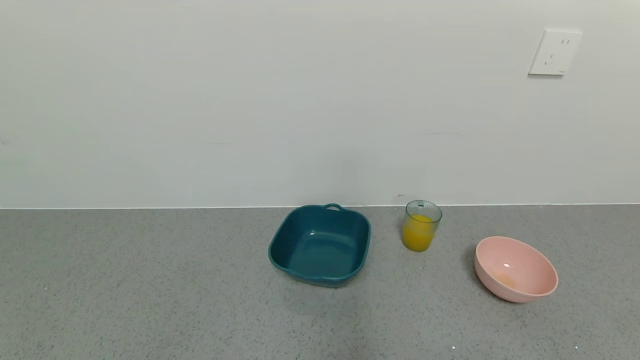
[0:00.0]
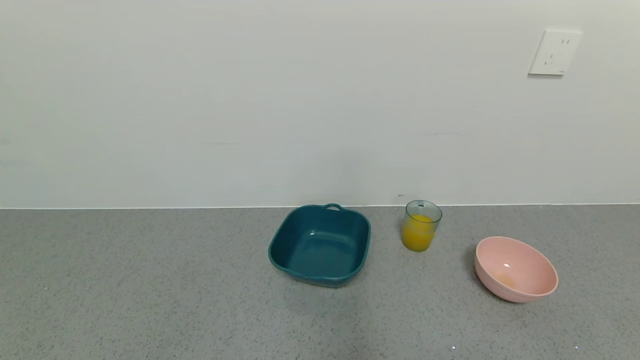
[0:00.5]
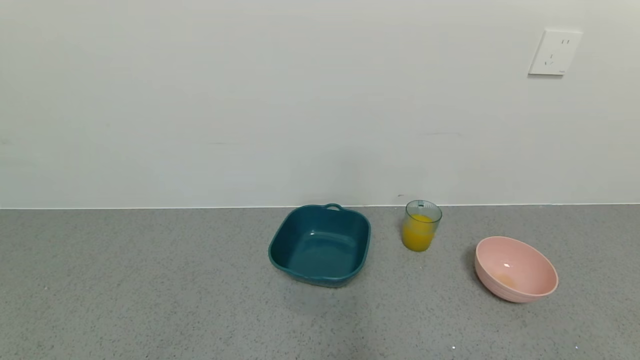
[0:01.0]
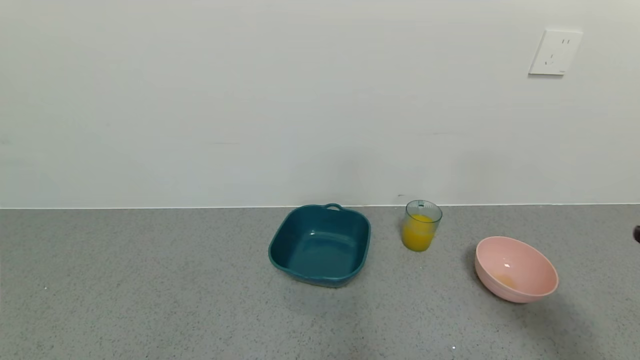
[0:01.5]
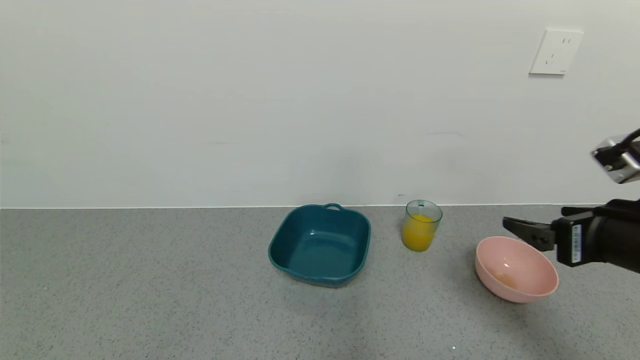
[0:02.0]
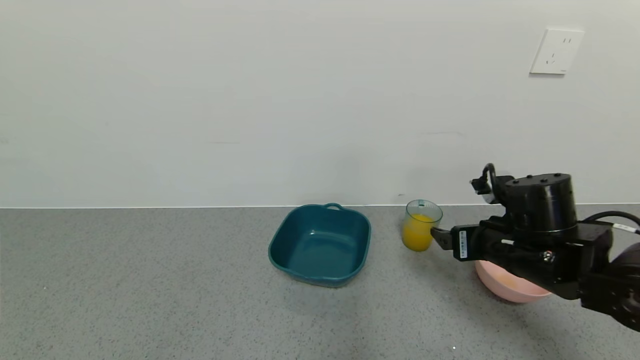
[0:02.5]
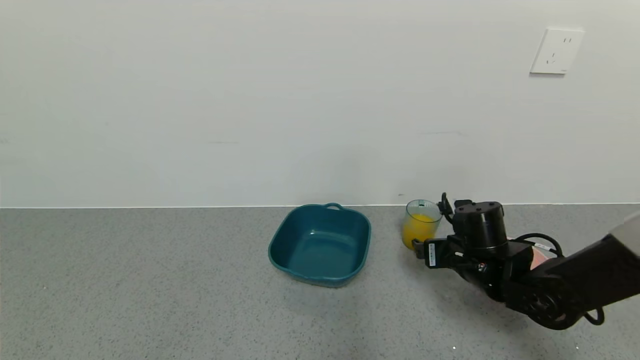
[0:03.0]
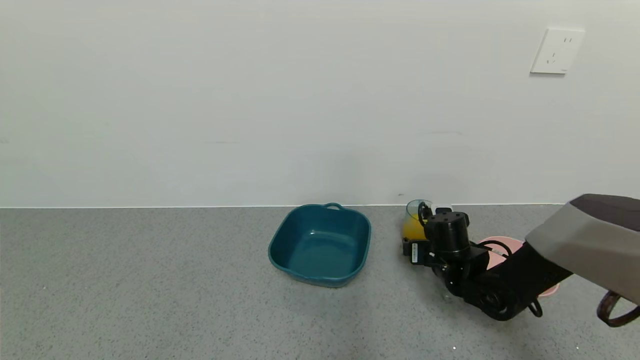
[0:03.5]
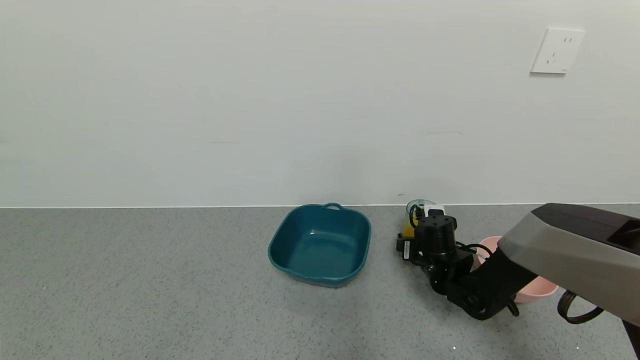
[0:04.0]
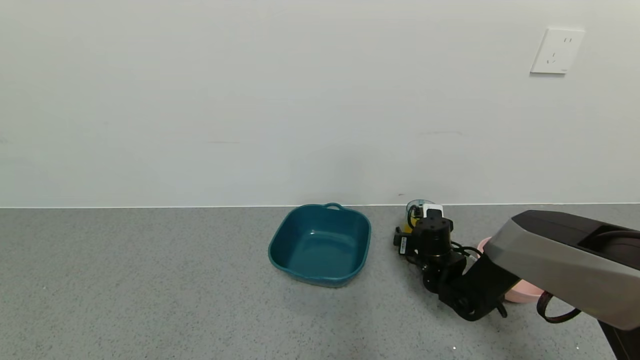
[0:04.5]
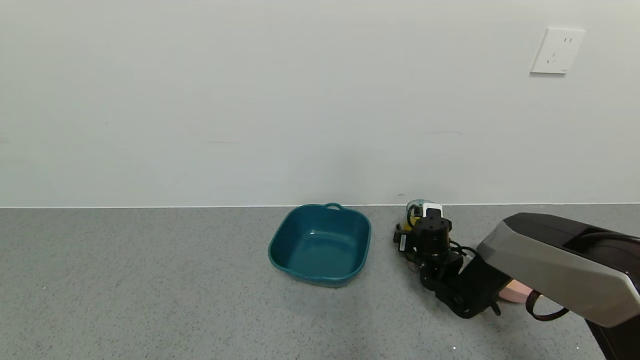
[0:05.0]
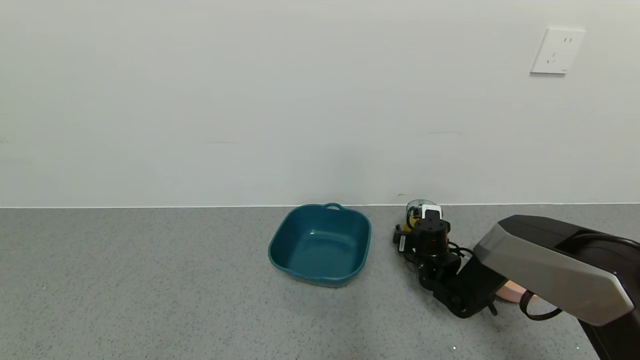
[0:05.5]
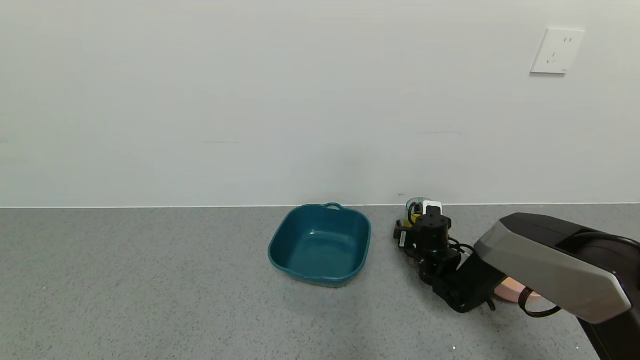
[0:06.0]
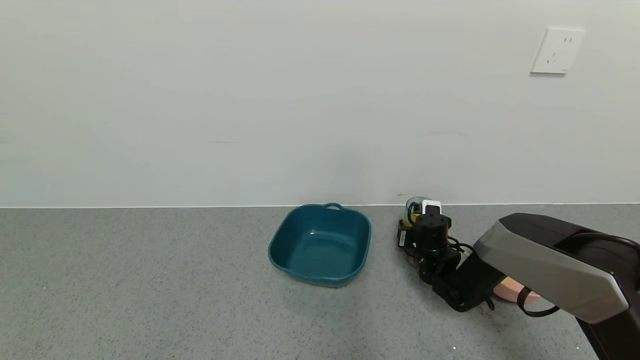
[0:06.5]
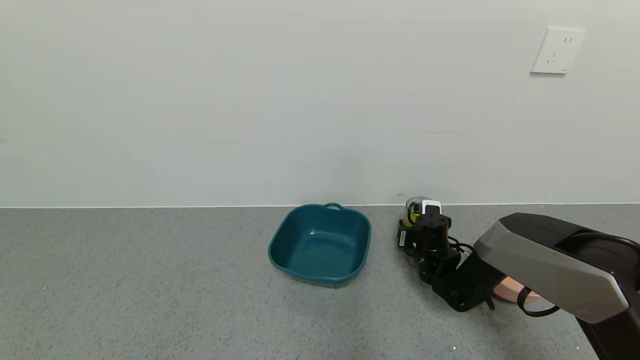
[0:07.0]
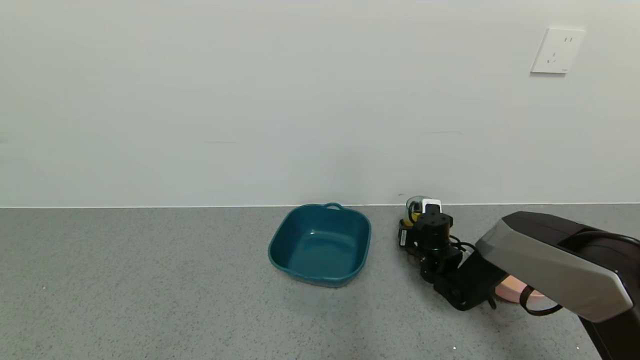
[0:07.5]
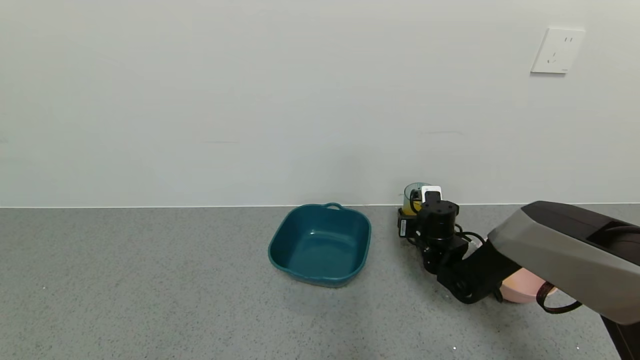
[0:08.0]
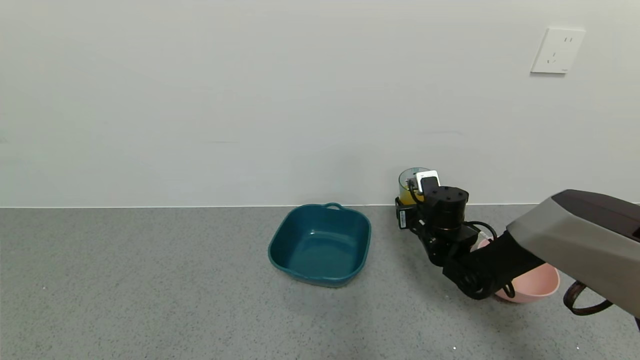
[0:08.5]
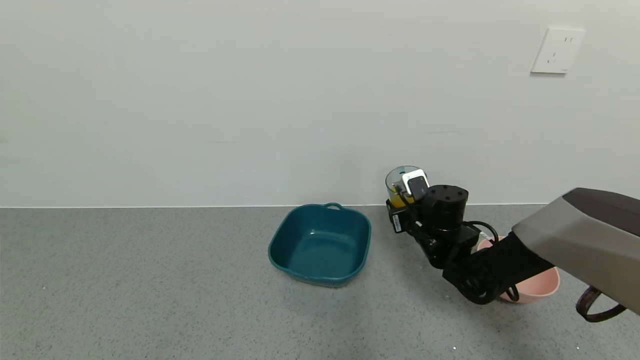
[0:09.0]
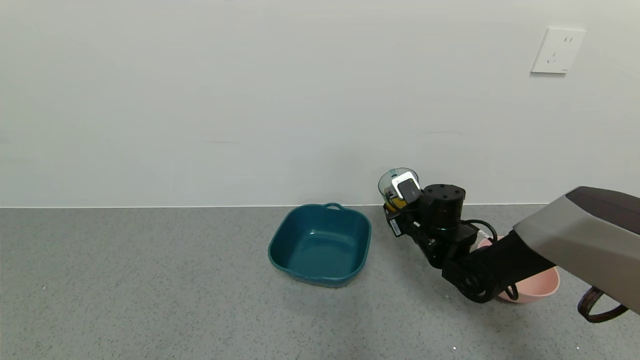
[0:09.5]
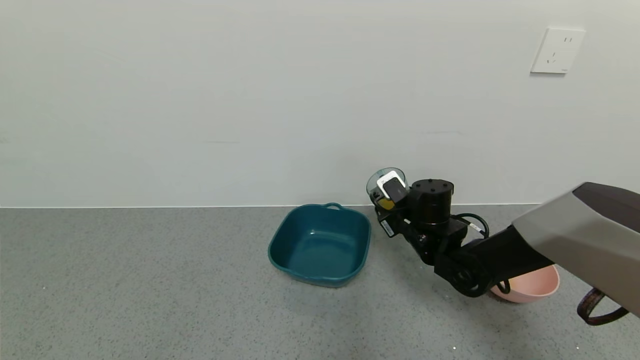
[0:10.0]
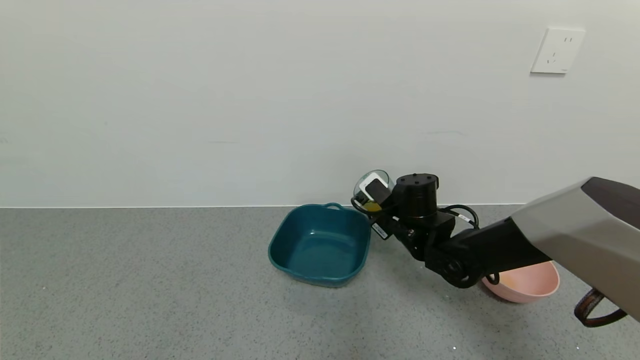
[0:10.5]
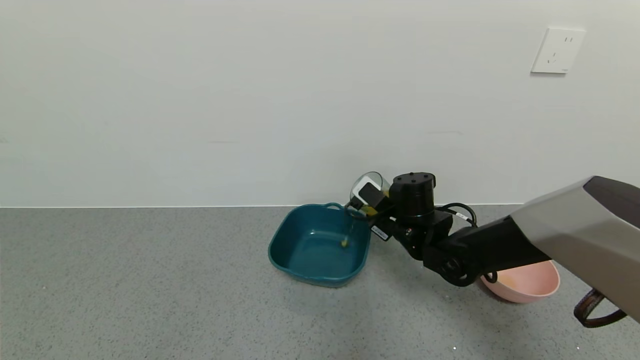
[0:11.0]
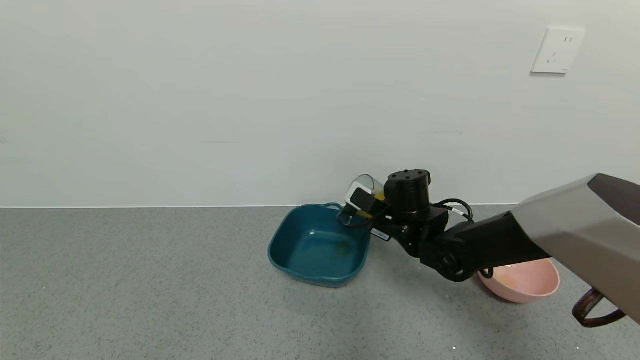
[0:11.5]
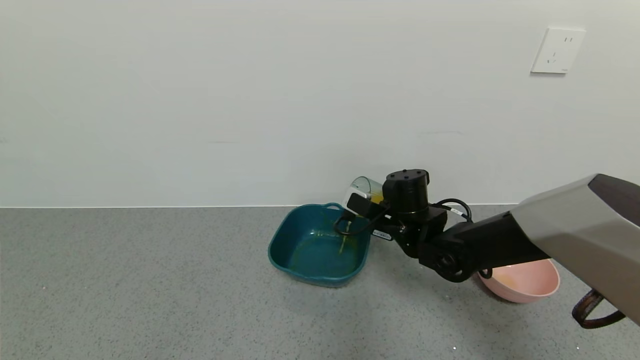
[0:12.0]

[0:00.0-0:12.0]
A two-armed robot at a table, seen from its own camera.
Task of the whole recording: use a gripper to pick up the cup and pour the liquid into a bowl or tray.
Step, 0:07.5 to 0:10.5: Pick up blue cup filled with orange juice with right gripper.
0:00.0 to 0:02.0: The right gripper goes about 25 cm forward and upward.
0:02.0 to 0:04.0: The right gripper shifts approximately 30 cm downward, forward and to the left.
0:04.0 to 0:06.0: The grippers make only small movements.
0:06.0 to 0:08.0: The right gripper closes up.
0:08.0 to 0:10.0: The right gripper heads upward, covering about 5 cm.

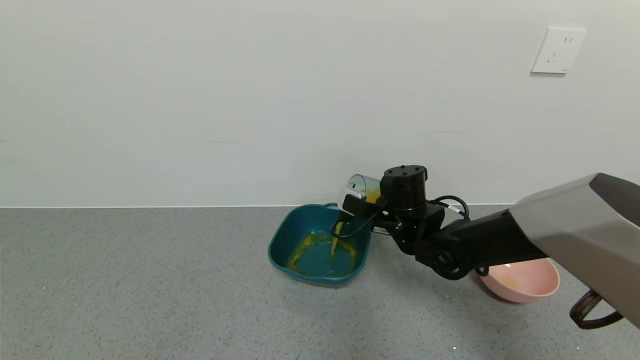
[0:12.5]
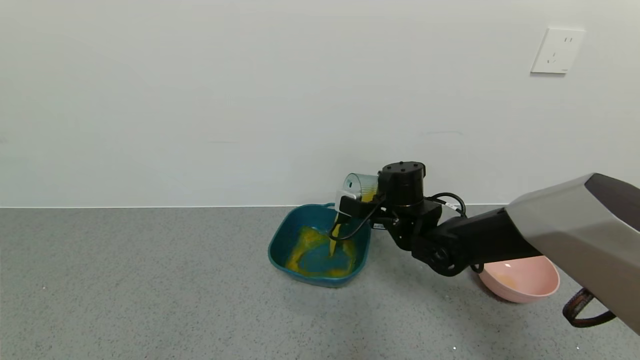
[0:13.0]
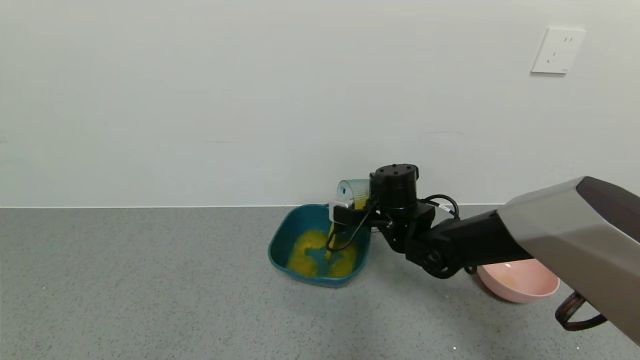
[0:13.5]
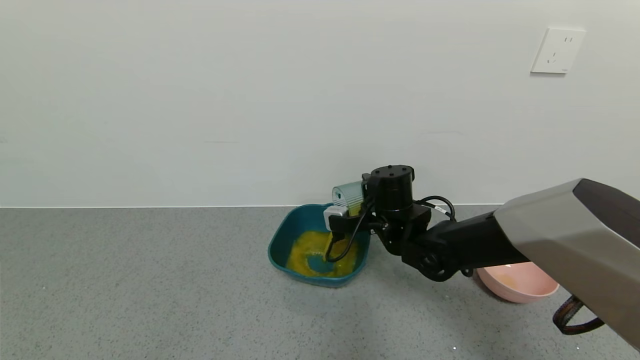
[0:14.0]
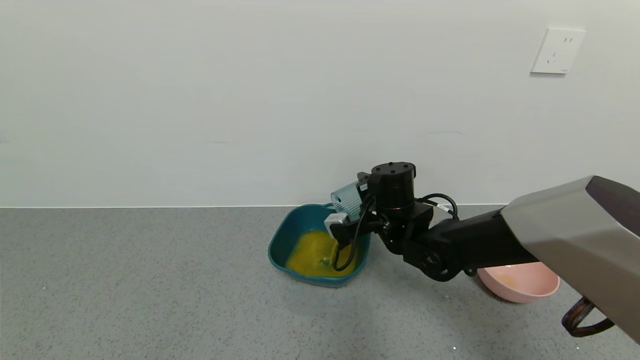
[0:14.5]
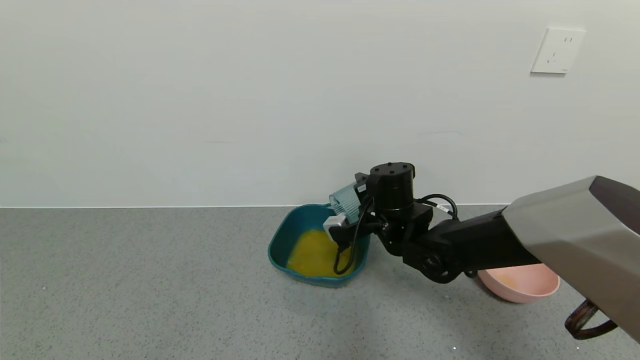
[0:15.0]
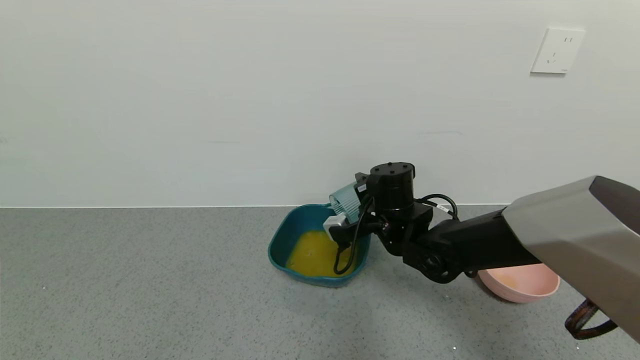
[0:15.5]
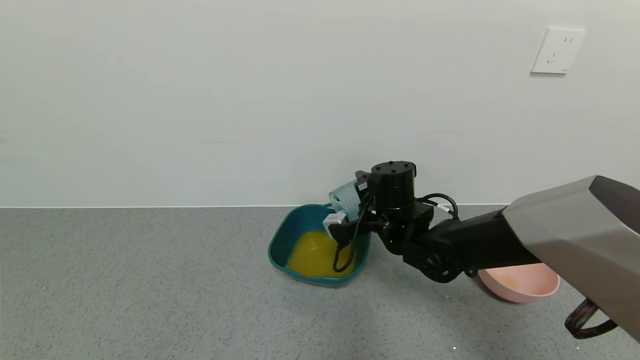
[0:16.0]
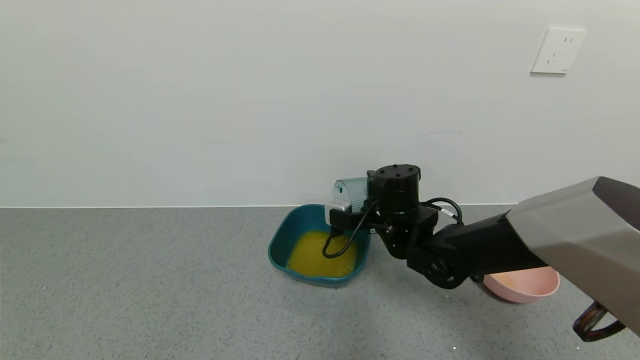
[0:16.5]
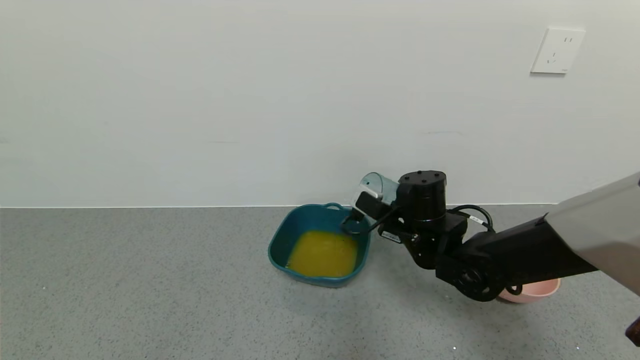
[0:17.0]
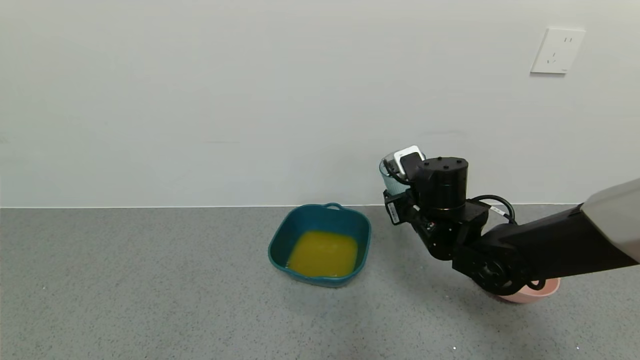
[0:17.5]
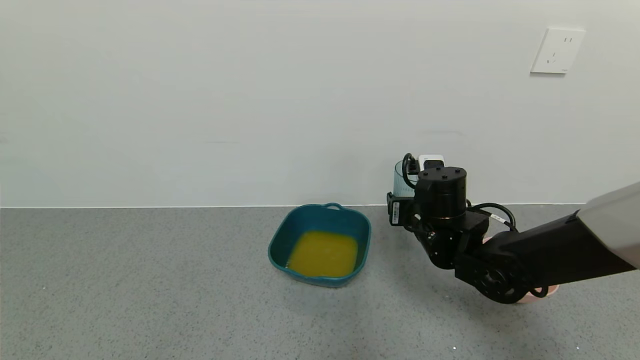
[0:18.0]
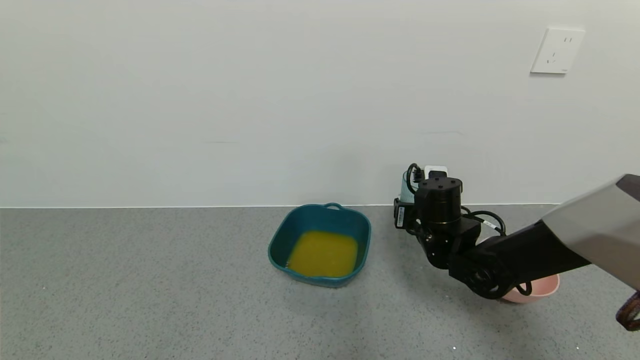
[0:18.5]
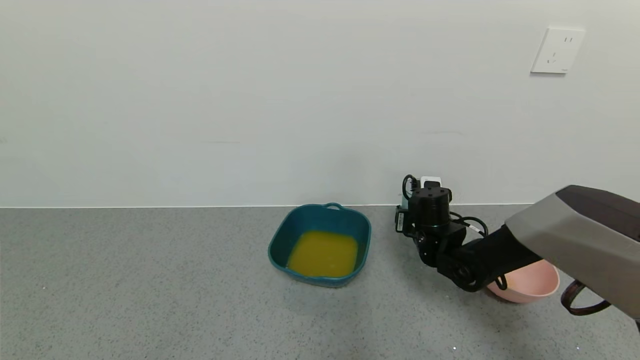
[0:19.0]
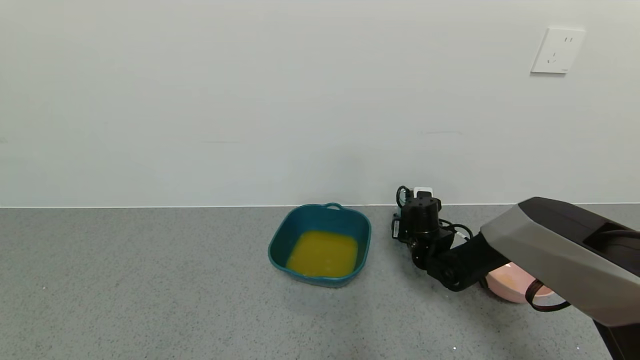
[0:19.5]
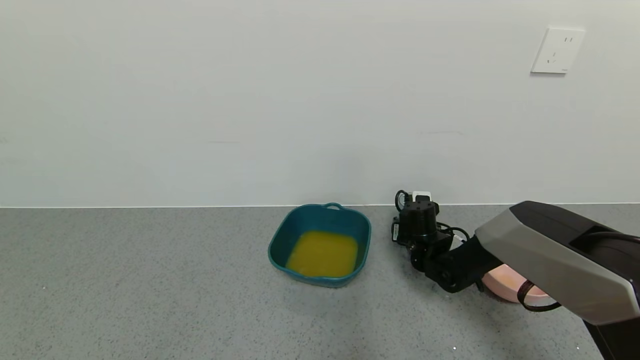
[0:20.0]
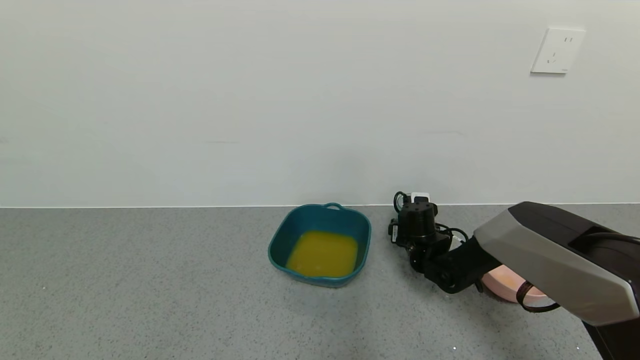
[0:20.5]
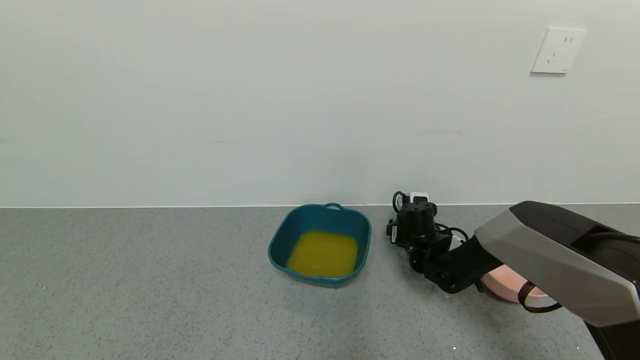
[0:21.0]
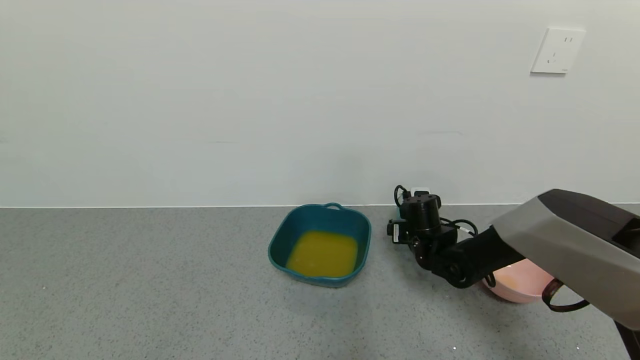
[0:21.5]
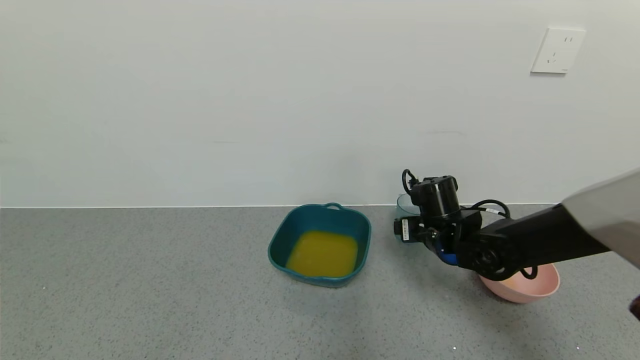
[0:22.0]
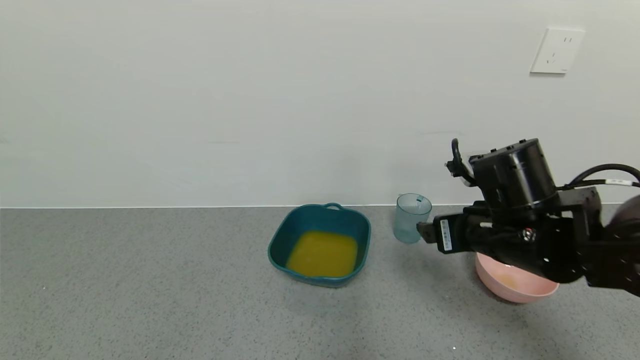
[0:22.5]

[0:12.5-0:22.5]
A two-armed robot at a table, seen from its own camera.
Task of the whole recording: use a gripper to pick up the cup and pour the liquid into a bowl or tray.
Step, 0:12.5 to 0:16.0: Pour the orange juice into the blue basin with right gripper.
Step, 0:16.5 to 0:21.0: Place blue cup with orange juice on the table with right gripper.
0:14.5 to 0:16.5: There are only small adjustments of the grippers.
0:16.5 to 0:18.5: The right gripper goes approximately 5 cm to the right.
0:18.5 to 0:20.5: The right gripper shifts about 10 cm downward and forward, and opens its fingers.
0:20.5 to 0:22.5: The right gripper goes about 25 cm upward and backward, and opens up.
